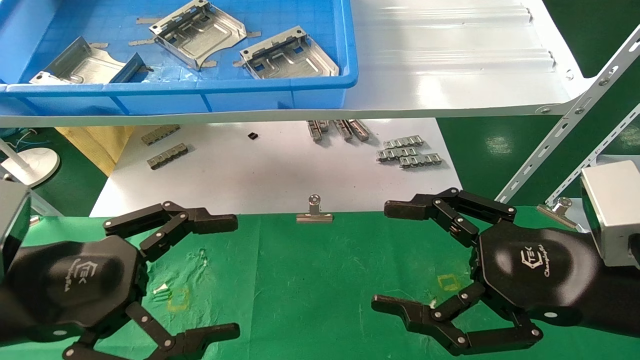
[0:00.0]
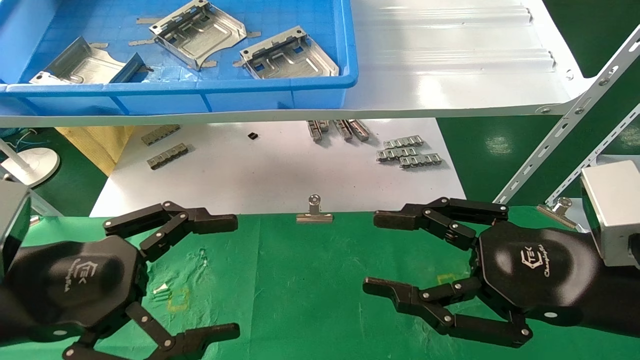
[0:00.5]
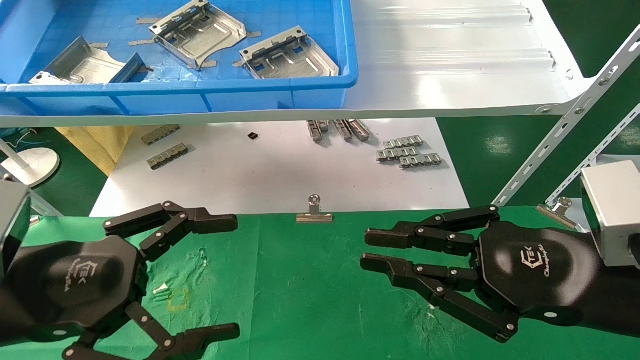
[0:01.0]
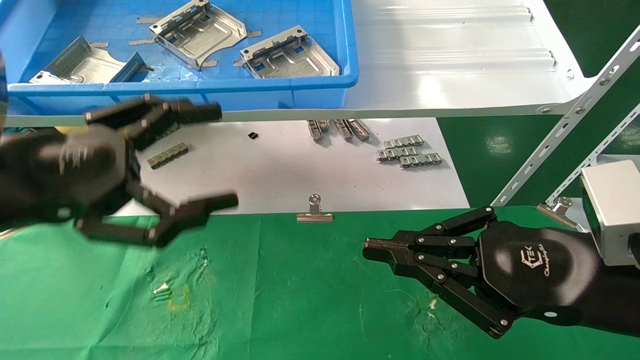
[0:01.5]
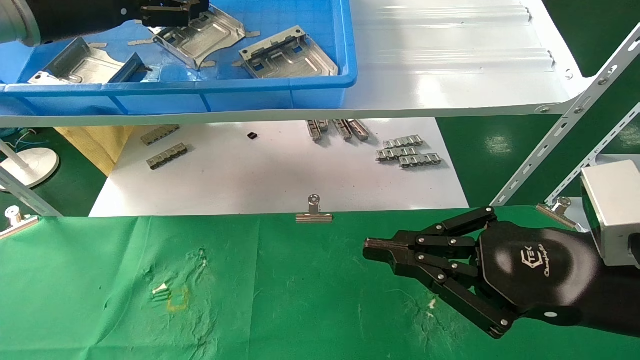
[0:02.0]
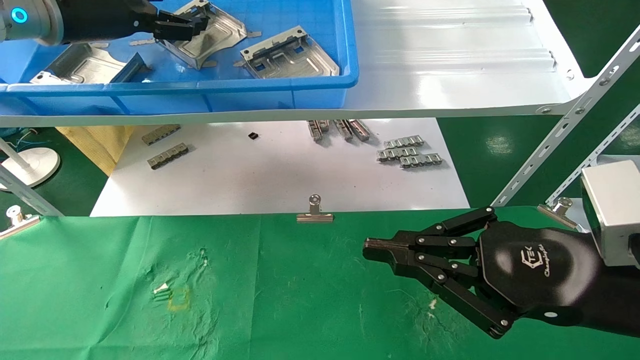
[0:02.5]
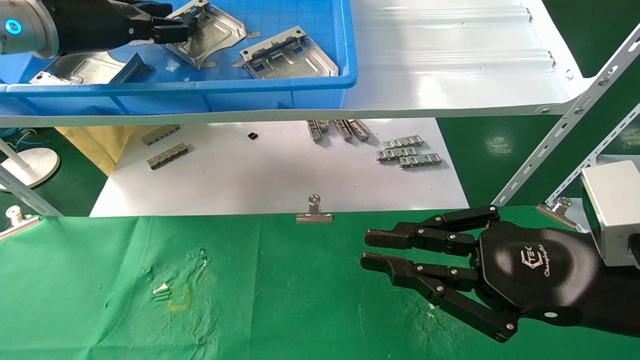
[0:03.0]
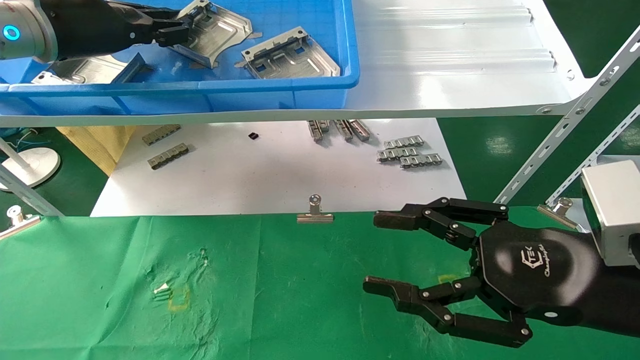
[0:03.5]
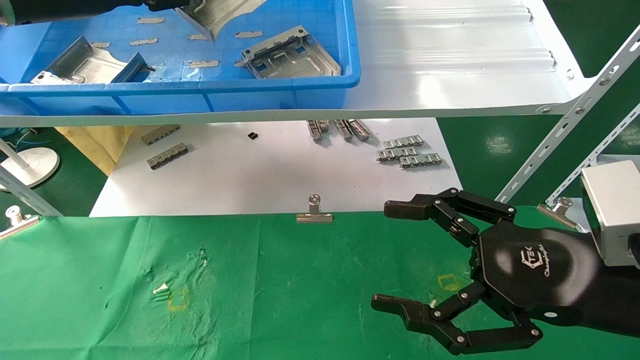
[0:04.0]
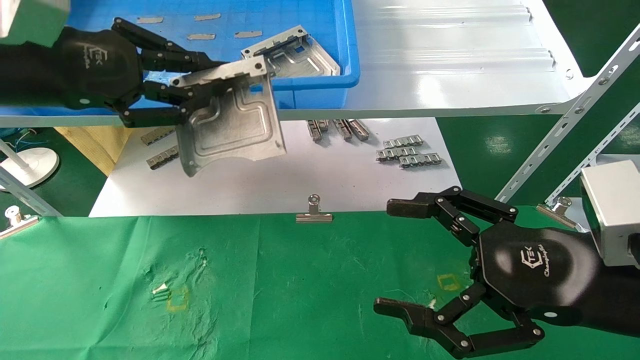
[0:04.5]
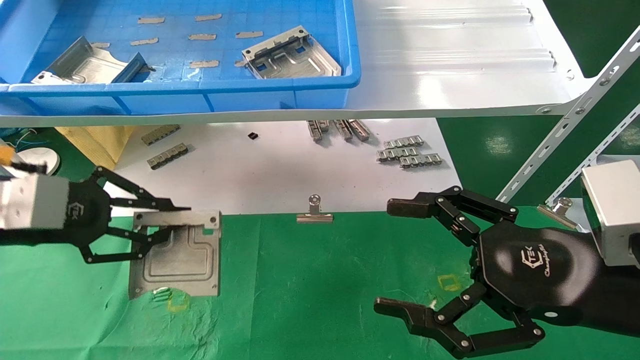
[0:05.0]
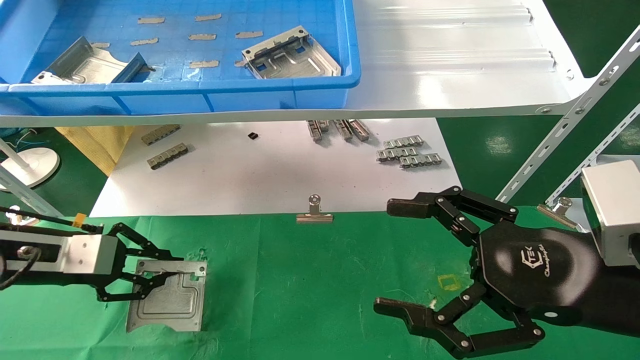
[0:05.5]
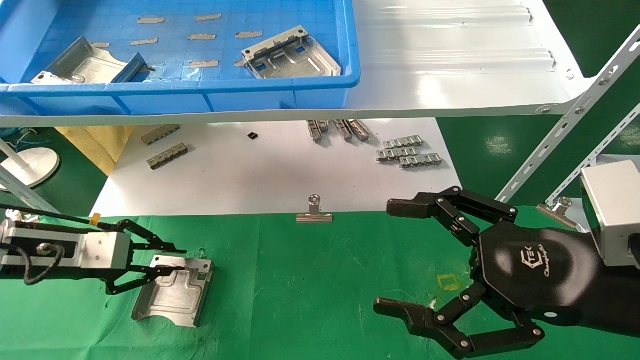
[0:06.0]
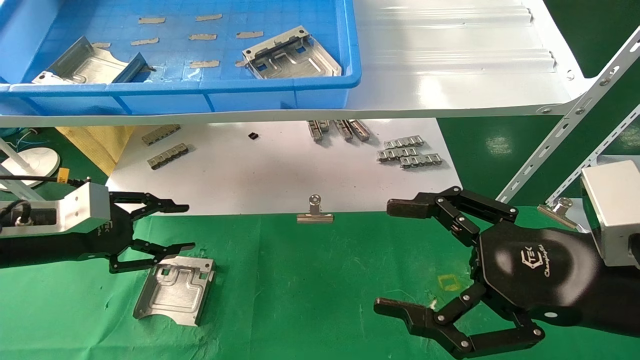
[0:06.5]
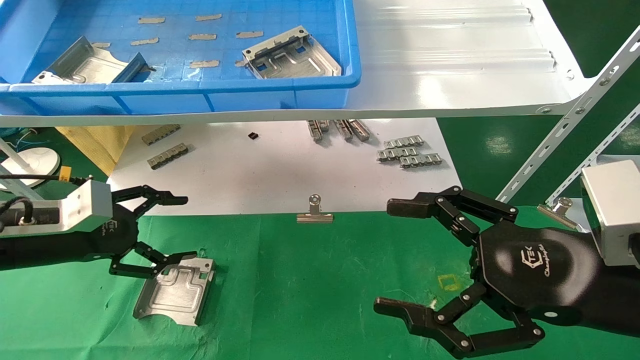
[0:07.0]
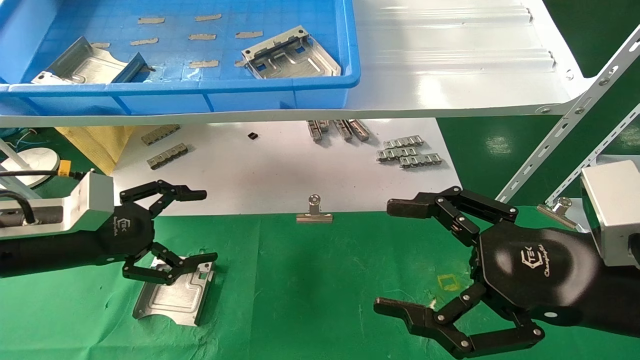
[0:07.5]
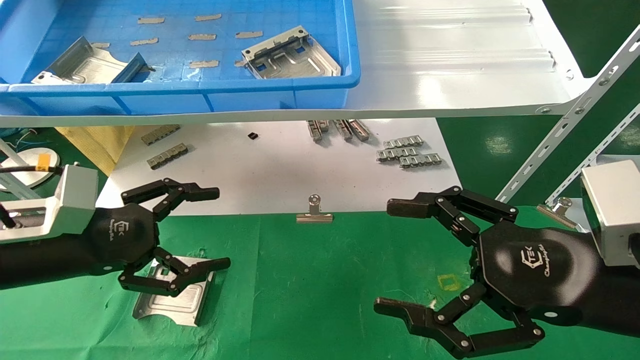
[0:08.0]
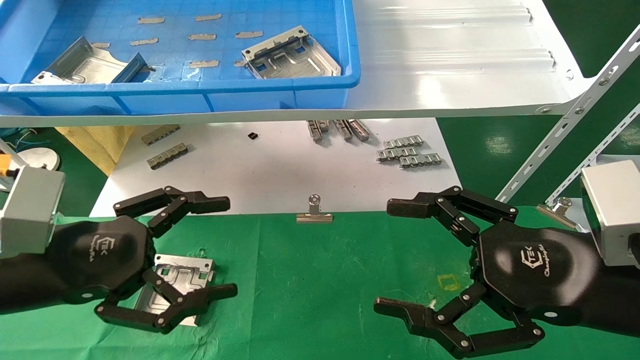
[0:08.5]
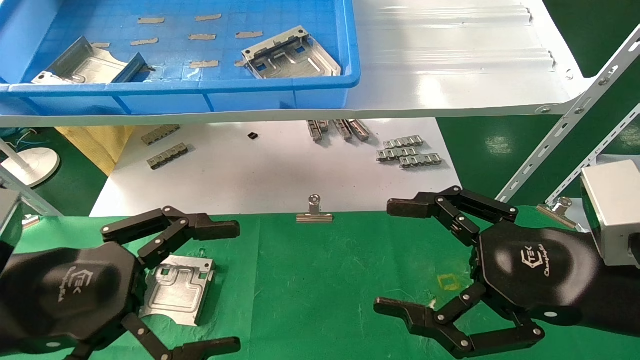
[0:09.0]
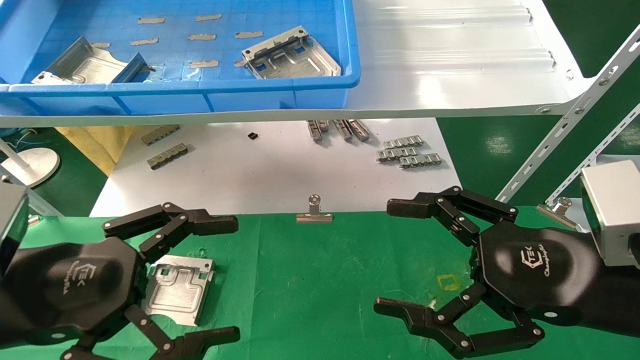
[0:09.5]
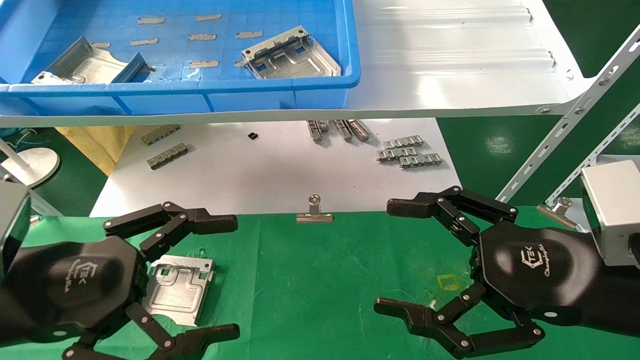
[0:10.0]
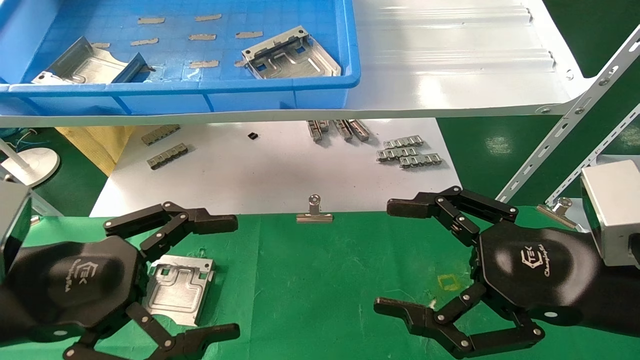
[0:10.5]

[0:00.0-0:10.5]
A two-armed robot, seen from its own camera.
Task of the whole recording: use the mechanical arm to pick up the parts and place them on the table.
Step, 0:01.0 to 0:04.5: Pick up the hard drive bracket from the feeding area.
Step, 0:05.0 to 0:06.5: Place the hard drive bracket into the box.
0:00.0 to 0:02.0: The left gripper shifts approximately 30 cm upward and forward, while the right gripper closes its fingers.
0:02.0 to 0:04.0: The right gripper opens up. Meanwhile the left gripper closes.
0:04.0 to 0:06.5: The left gripper shifts approximately 25 cm downward, and opens its fingers.
0:06.5 to 0:08.5: The left gripper shifts some 15 cm backward and to the right, and opens up.
0:08.5 to 0:10.5: The grippers stay close to where they were, moving slightly.

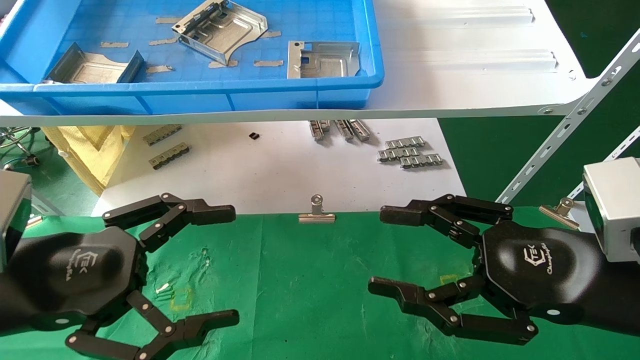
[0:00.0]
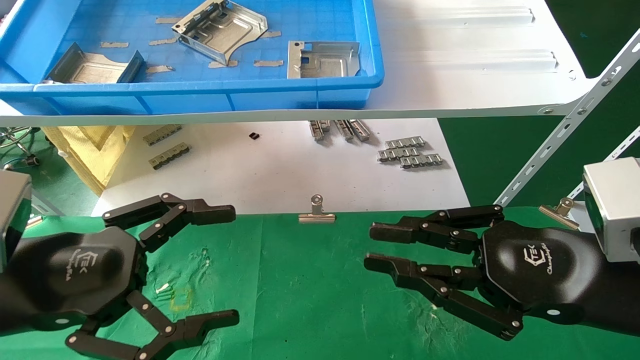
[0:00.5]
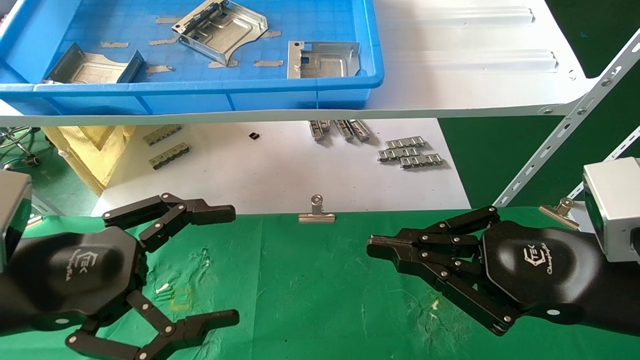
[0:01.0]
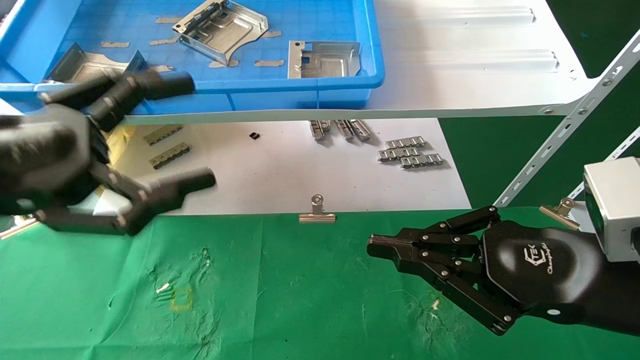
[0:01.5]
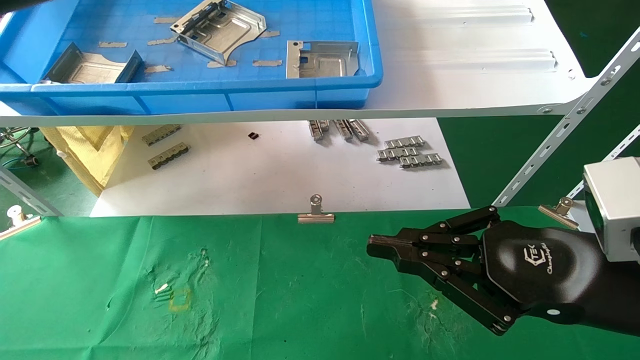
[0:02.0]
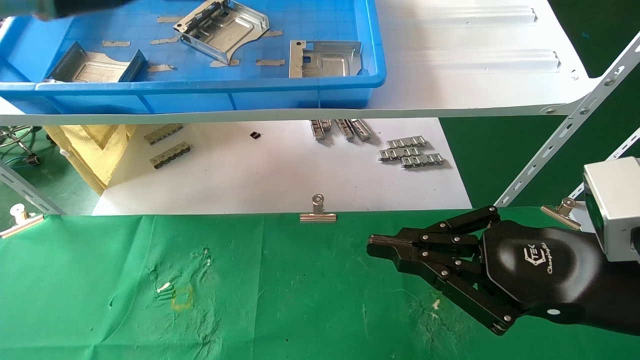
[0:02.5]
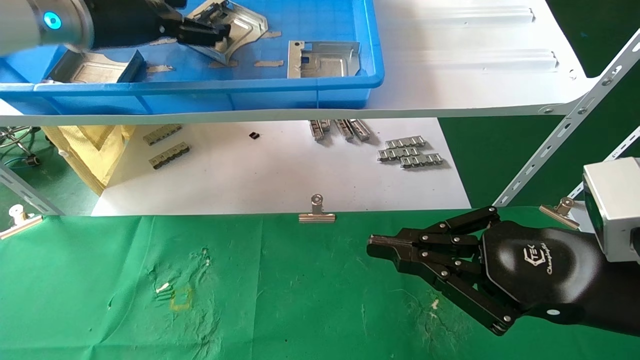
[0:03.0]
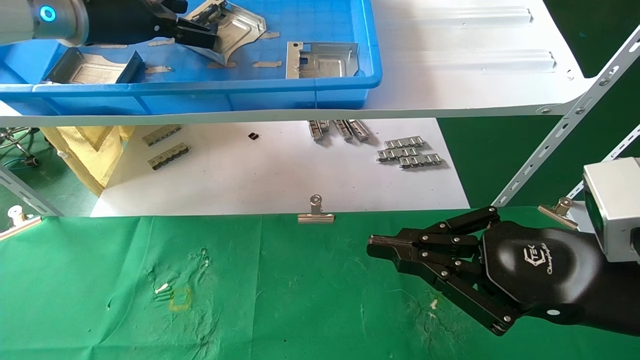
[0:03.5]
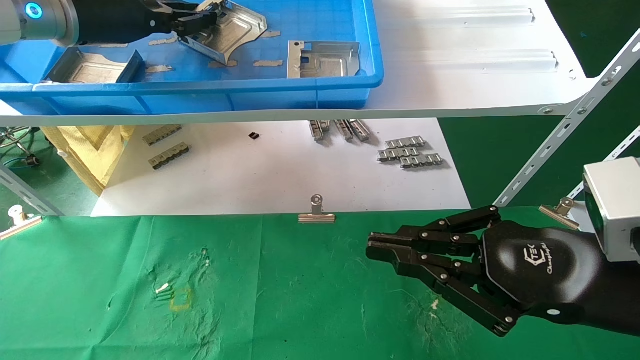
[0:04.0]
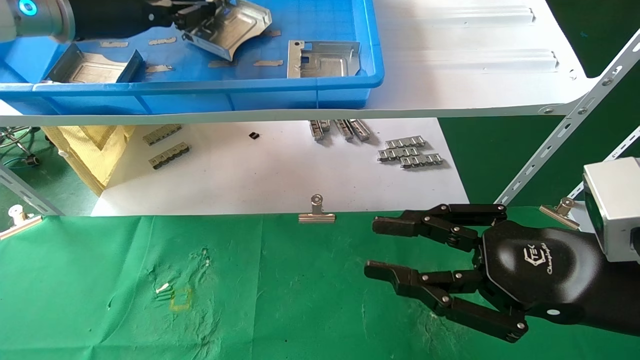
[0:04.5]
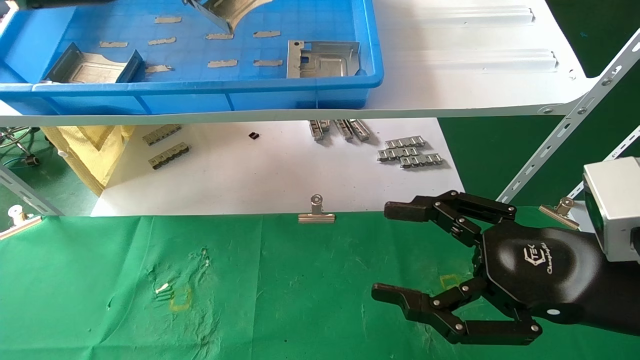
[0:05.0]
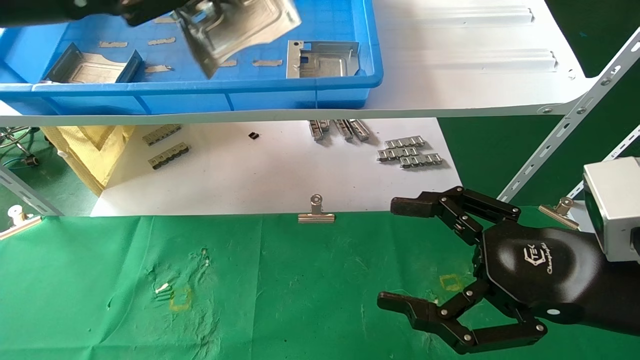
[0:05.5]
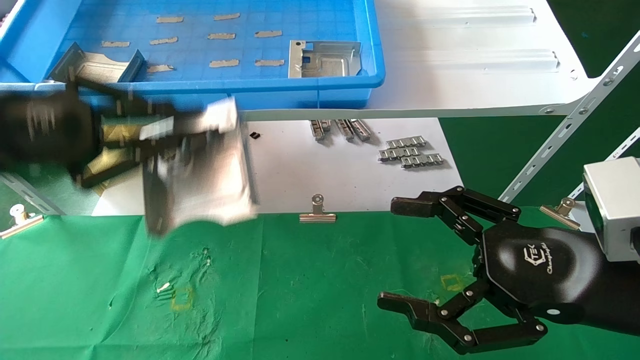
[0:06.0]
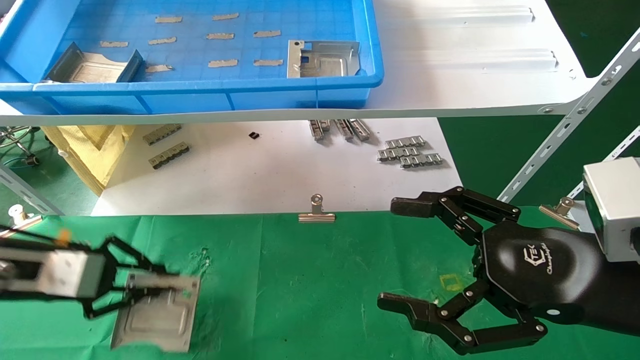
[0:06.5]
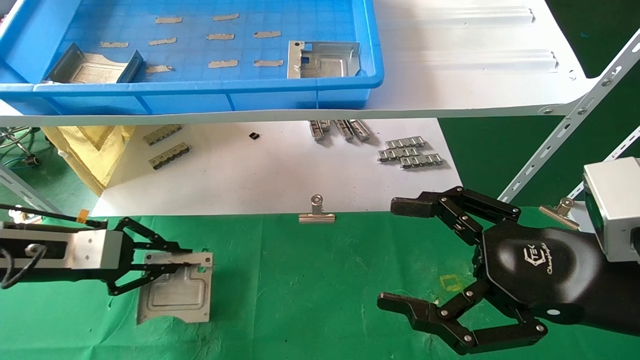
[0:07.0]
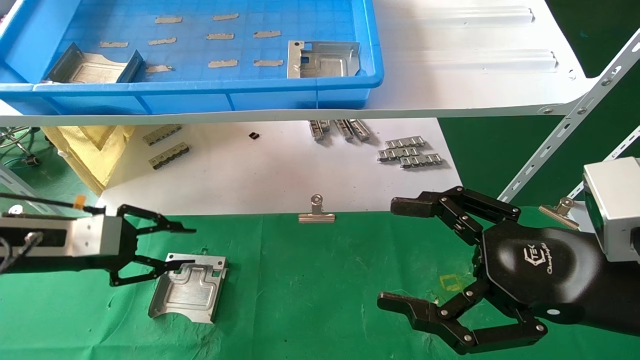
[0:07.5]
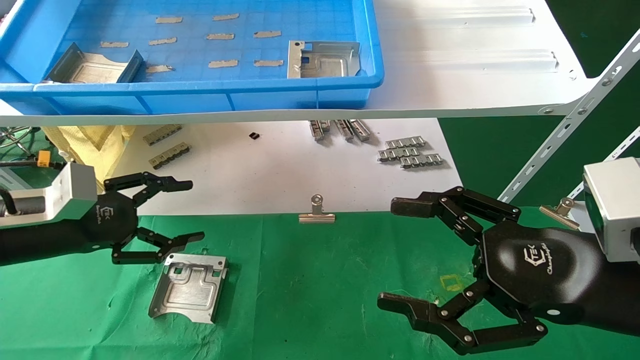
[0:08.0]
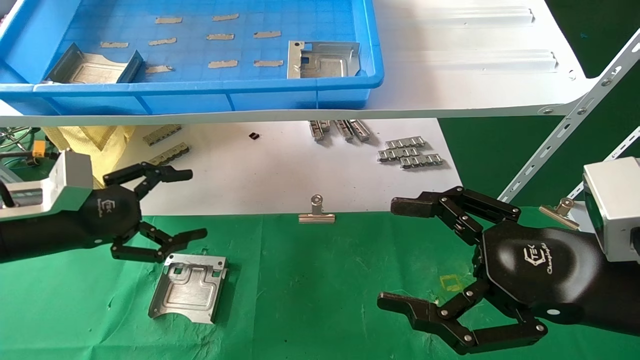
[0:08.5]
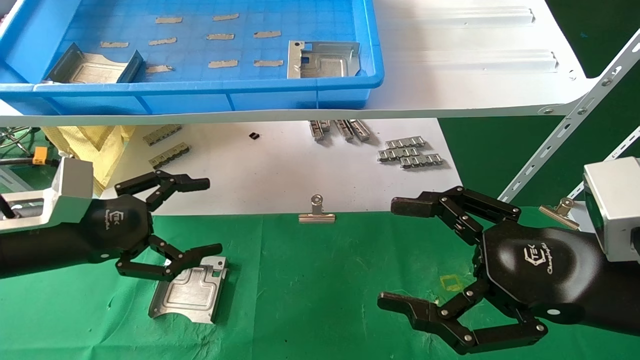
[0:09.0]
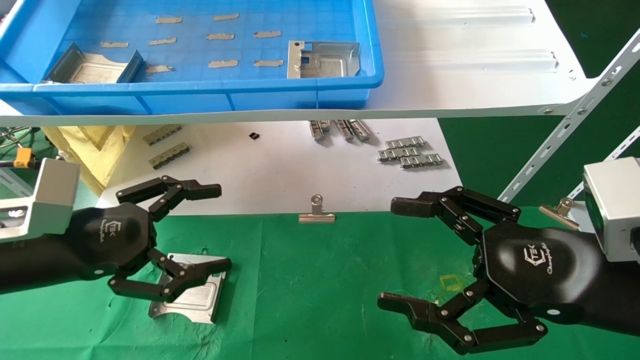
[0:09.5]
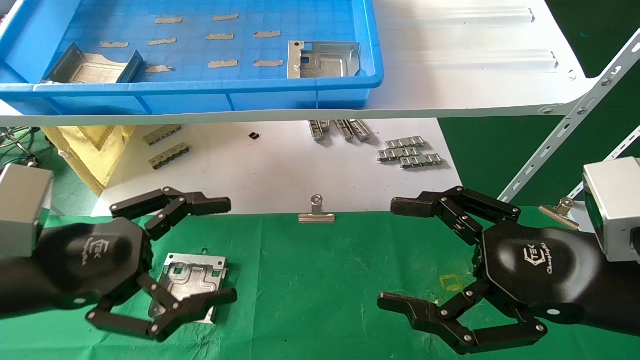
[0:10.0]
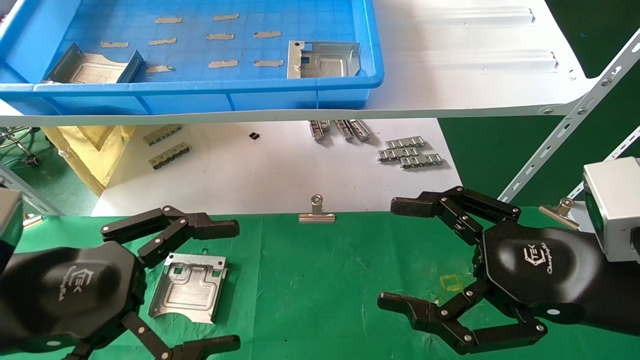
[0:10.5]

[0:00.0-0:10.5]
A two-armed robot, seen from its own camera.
Task of the whole recording: use the mechanical arm to pick up the parts and place them on the table.
Step, 0:02.0 to 0:04.0: Pick up the hard drive bracket from the feeding area.
Step, 0:04.5 to 0:07.5: Place the hard drive bracket into the box.
0:00.0 to 0:02.0: The right gripper closes, while the left gripper is displaced upward and forward by approximately 25 cm.
0:02.0 to 0:04.0: The left gripper shifts some 10 cm forward, and closes its fingers.
0:04.0 to 0:06.5: The right gripper opens up, while the left gripper moves downward and backward, some 25 cm.
0:06.5 to 0:08.5: The left gripper opens its fingers.
0:08.5 to 0:10.5: The left gripper heads backward and to the right, covering about 15 cm.
